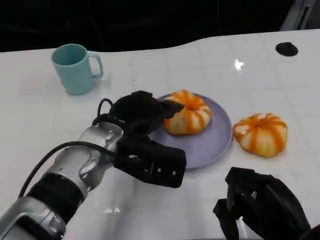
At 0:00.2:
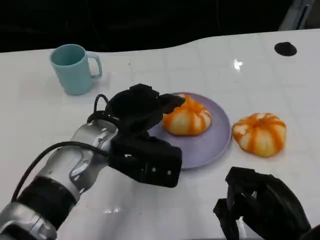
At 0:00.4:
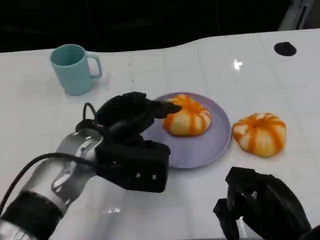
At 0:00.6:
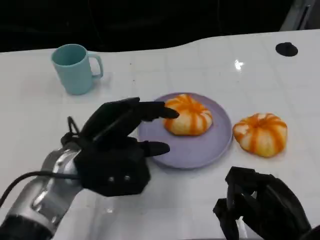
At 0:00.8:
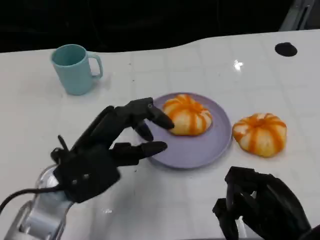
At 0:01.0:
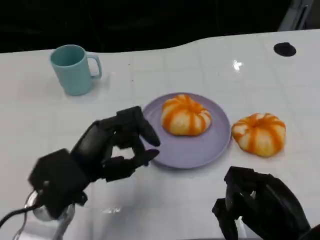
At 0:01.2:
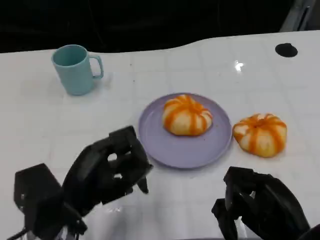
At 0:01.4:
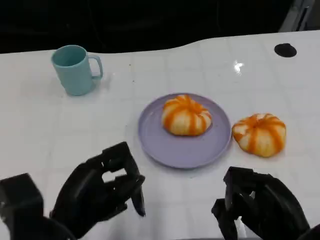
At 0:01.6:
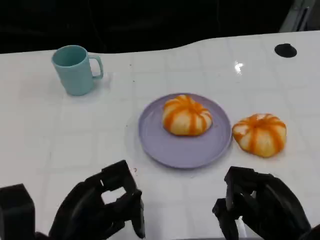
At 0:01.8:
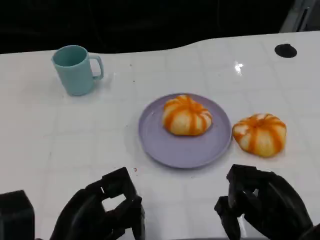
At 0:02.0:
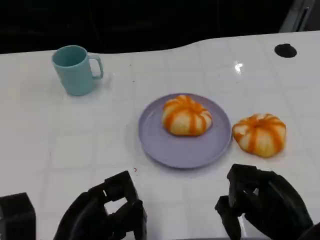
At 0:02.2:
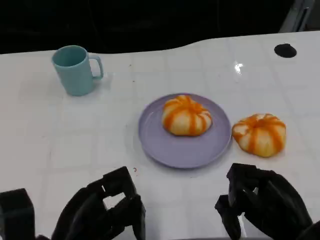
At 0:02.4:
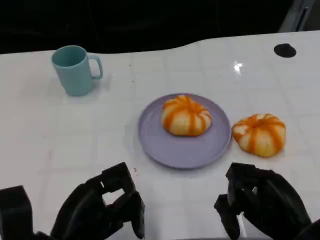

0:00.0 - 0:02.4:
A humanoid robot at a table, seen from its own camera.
Task of the whole recording: Grasp the bread from the table and place it into the plate.
0:00.0 - 0:01.2: The left hand is displaced backward and to the left by some 15 cm.

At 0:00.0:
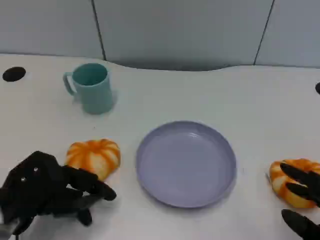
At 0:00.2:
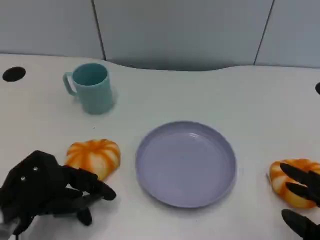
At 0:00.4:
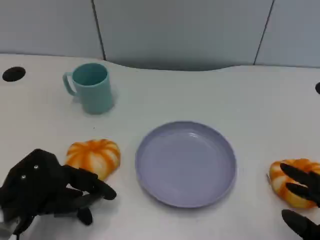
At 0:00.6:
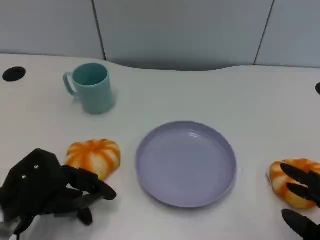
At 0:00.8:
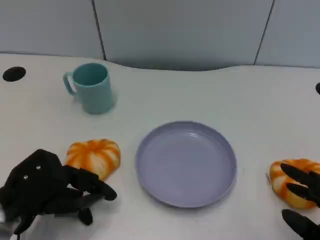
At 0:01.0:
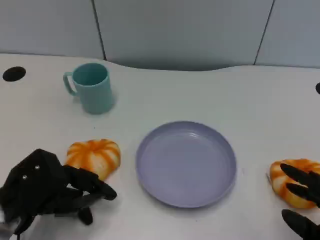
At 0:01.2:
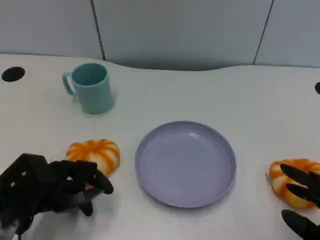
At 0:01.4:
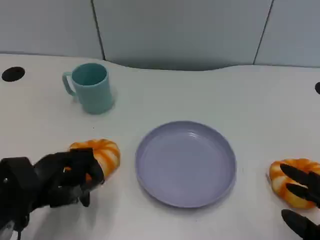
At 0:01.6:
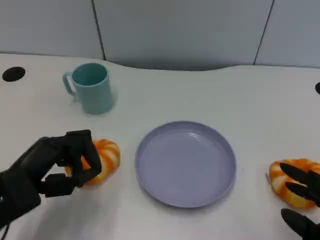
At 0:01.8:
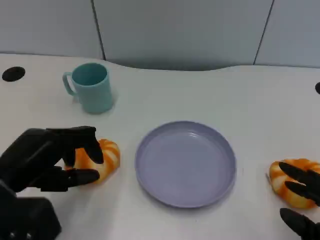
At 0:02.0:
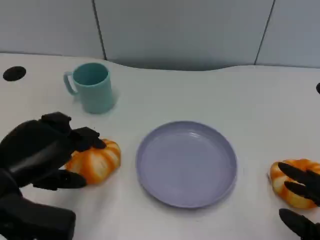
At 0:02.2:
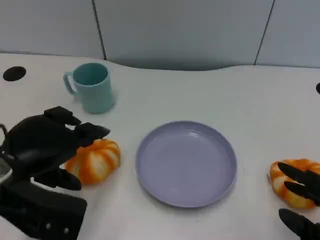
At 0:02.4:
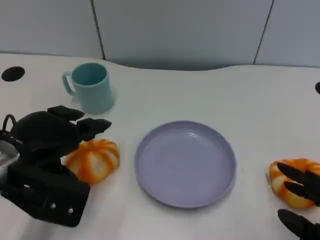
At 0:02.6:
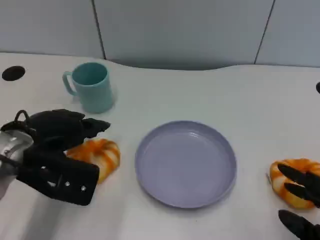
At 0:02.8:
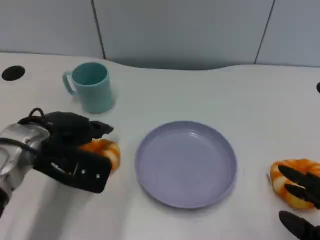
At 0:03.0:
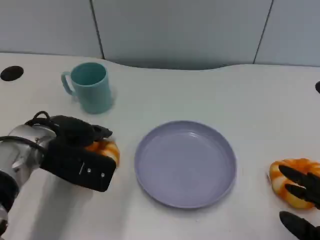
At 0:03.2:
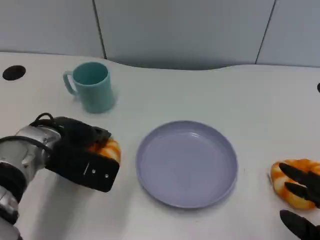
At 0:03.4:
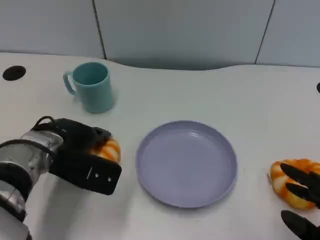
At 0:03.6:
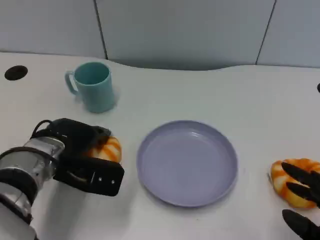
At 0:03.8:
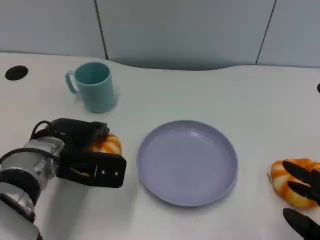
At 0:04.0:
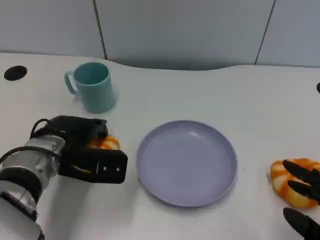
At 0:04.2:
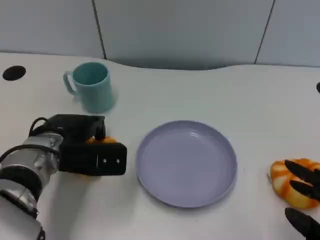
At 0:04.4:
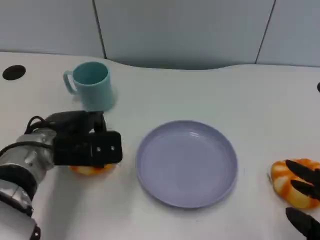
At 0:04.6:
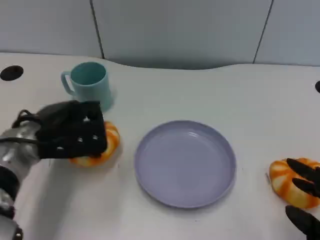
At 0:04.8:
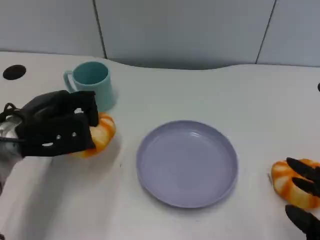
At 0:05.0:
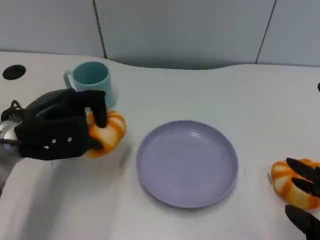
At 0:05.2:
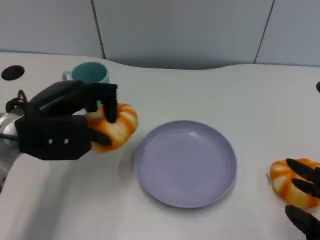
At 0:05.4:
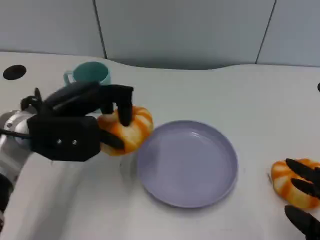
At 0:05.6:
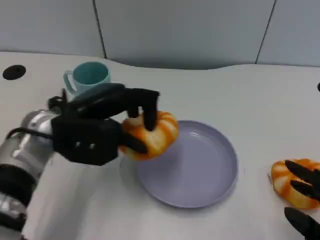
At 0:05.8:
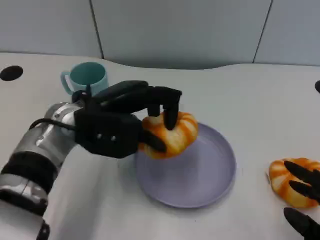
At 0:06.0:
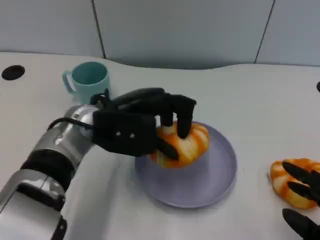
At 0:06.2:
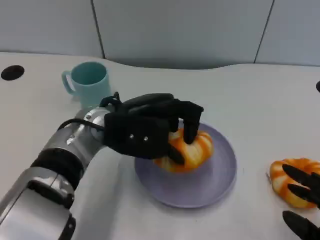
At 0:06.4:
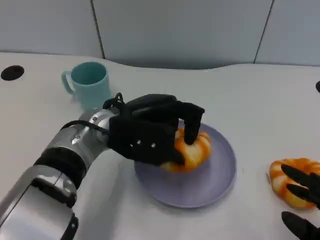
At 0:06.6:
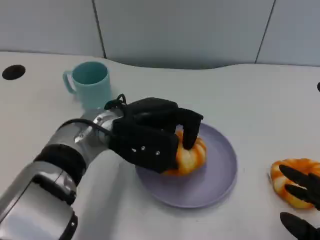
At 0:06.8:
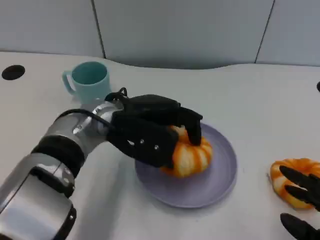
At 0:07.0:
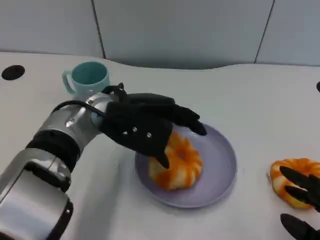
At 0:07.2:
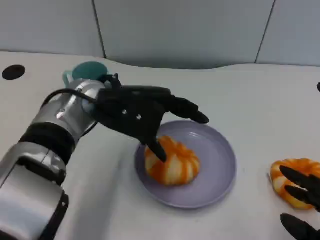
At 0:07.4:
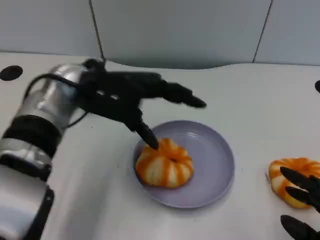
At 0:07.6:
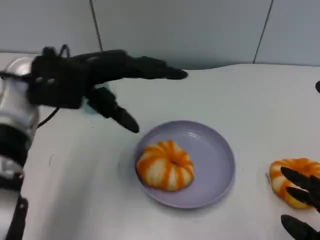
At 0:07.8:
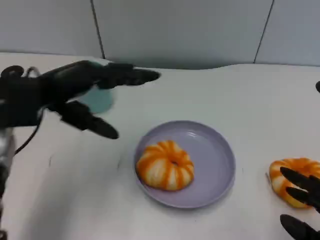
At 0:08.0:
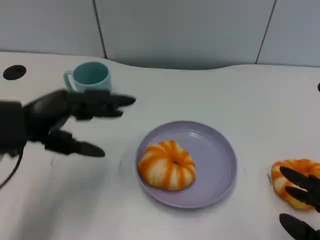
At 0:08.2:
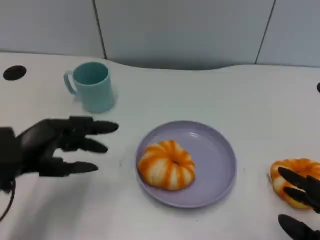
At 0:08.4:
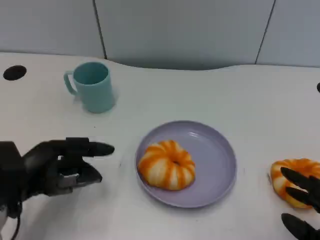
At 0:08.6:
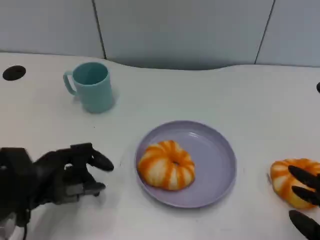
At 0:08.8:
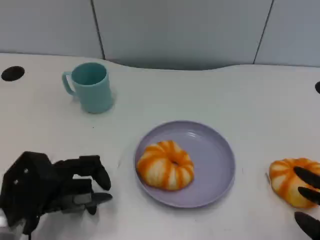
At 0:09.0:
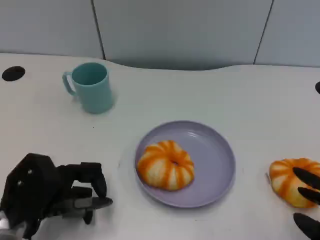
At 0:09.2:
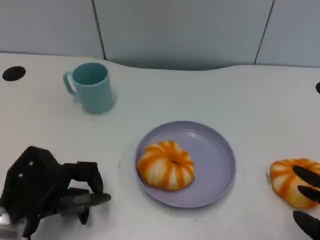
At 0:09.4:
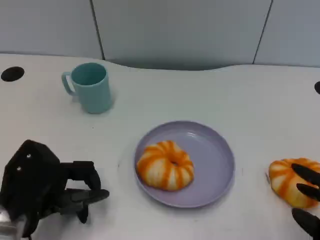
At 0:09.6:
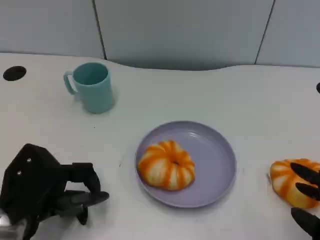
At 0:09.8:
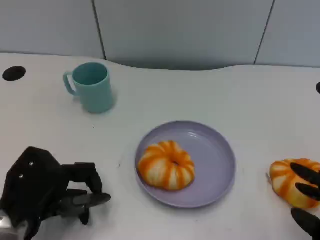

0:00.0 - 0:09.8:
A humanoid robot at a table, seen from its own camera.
Task of the whole recording: Grasp the bread from the table and place it into the plate.
0:01.4 - 0:02.8: The left hand goes about 10 cm forward.
0:02.8 - 0:04.2: The hands make only small movements.
0:04.2 - 0:05.6: The left hand shifts roughly 5 cm upward.
0:05.6 - 0:07.0: The left hand travels to the right by some 5 cm.
0:07.0 - 0:08.4: The left hand goes roughly 20 cm to the left, backward and downward.

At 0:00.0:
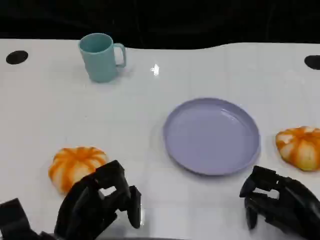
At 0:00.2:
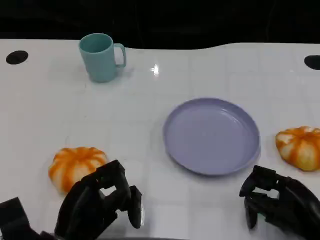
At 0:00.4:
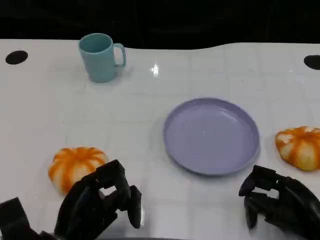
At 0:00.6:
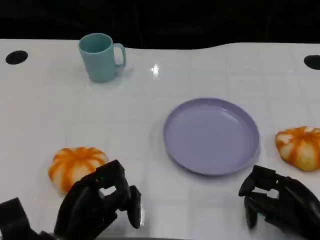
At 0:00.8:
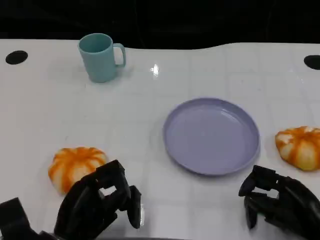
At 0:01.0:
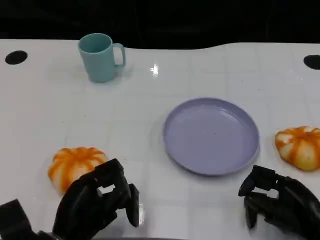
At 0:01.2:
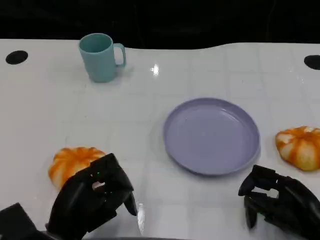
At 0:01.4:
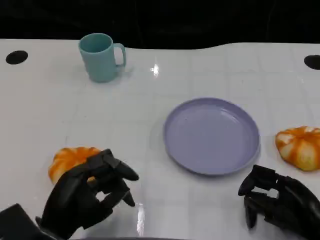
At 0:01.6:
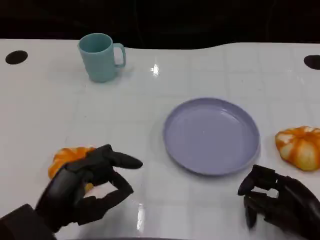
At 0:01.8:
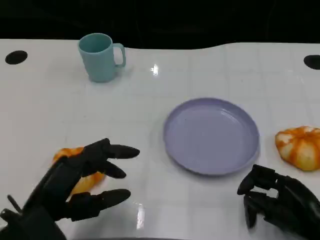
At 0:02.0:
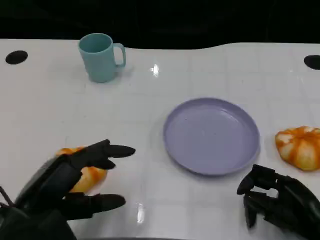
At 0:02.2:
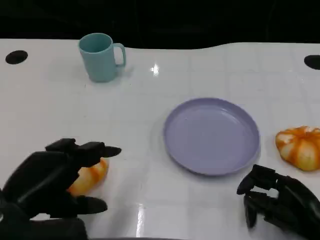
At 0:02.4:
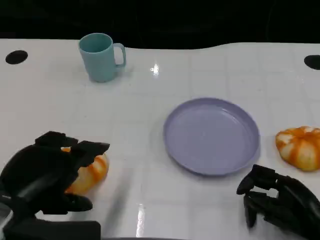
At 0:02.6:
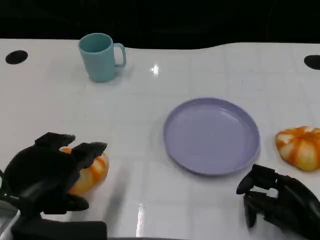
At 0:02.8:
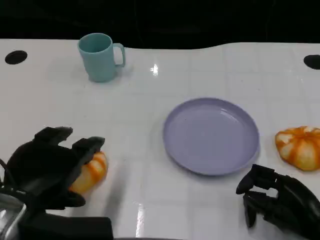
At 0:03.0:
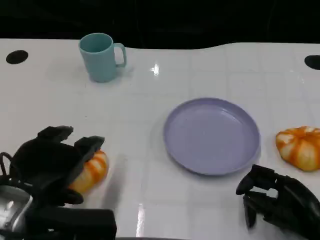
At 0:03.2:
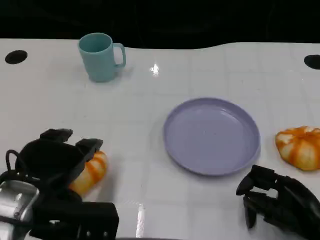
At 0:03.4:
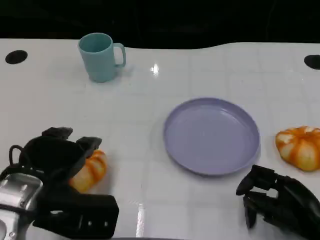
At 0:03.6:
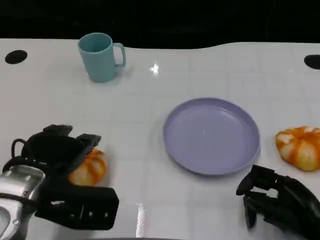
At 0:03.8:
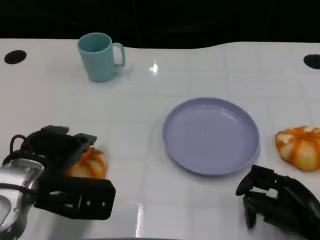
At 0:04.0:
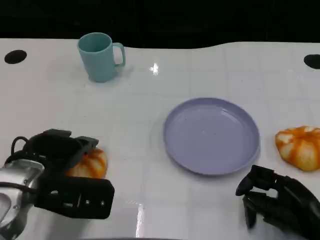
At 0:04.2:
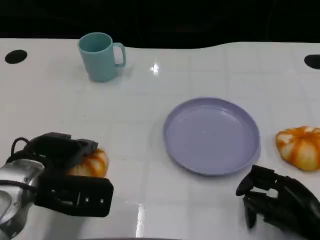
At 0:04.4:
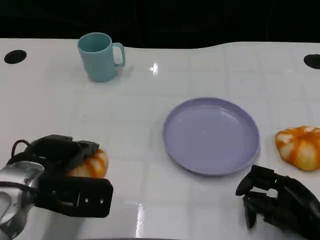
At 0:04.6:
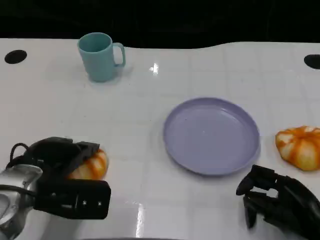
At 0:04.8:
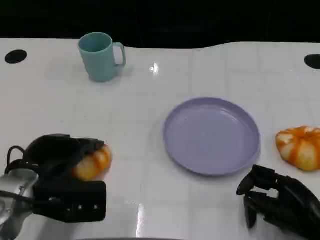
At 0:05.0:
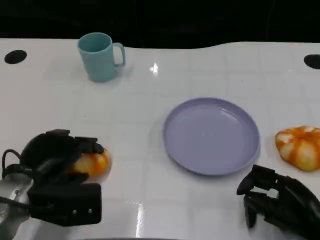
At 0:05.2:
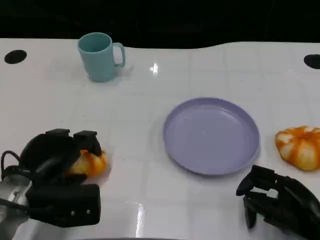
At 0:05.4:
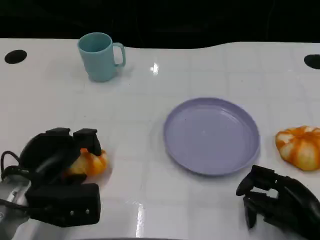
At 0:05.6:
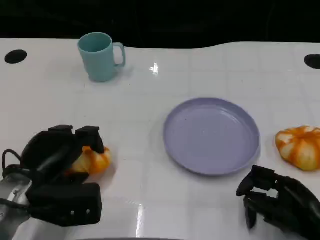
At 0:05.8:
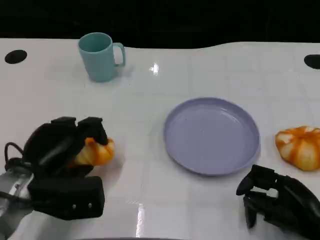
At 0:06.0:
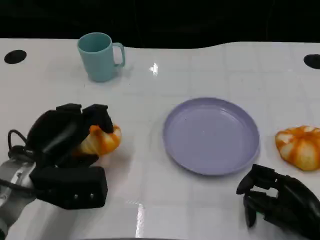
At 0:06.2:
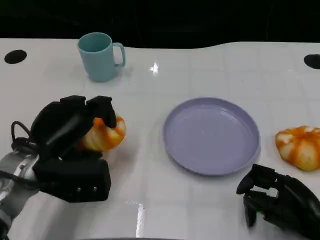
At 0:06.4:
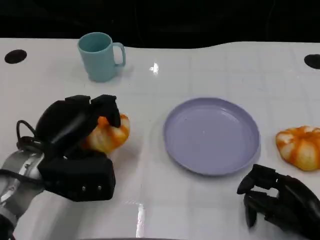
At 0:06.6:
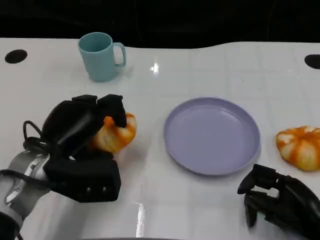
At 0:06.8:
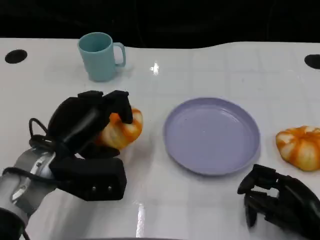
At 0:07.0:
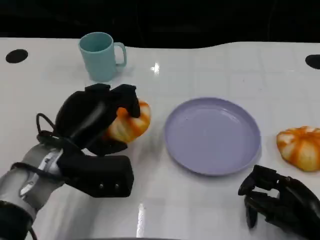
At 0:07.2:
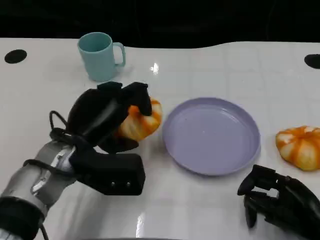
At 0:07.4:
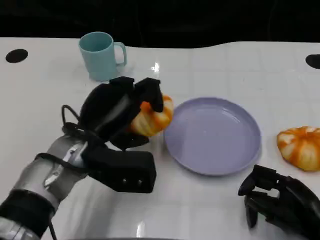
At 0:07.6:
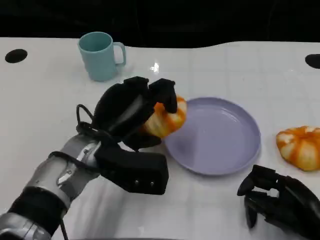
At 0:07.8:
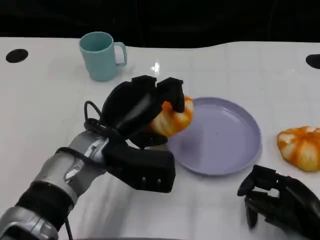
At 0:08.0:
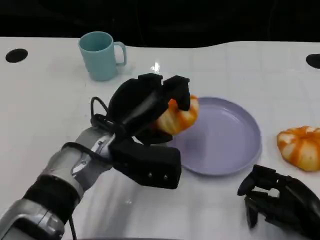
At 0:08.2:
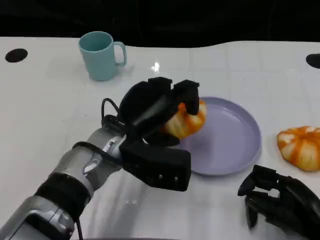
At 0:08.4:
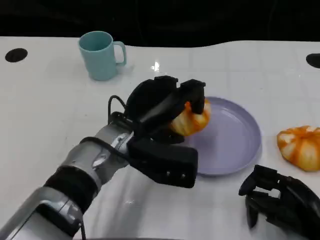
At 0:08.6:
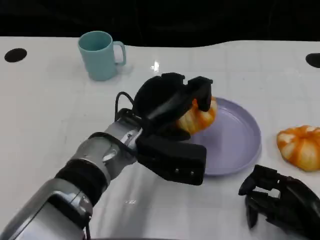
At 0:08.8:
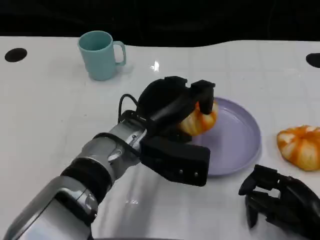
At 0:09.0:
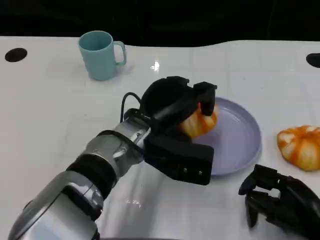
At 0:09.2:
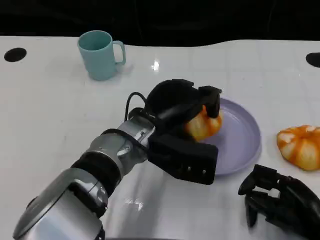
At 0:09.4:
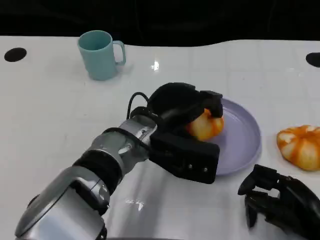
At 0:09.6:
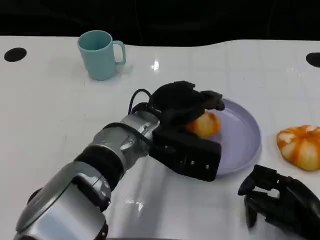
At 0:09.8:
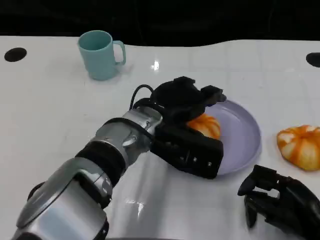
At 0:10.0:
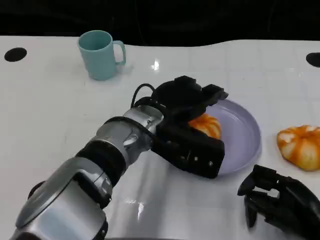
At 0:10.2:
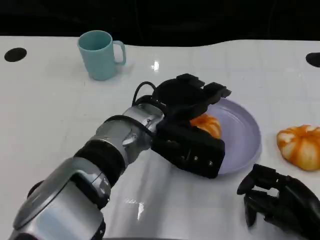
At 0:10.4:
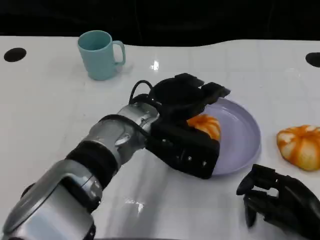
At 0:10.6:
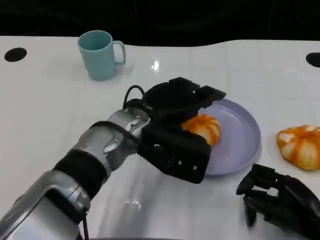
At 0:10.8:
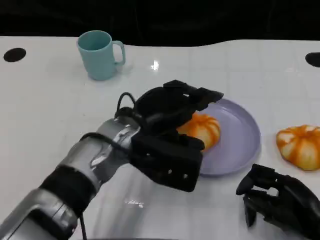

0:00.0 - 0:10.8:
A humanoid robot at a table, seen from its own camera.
Task of the whole recording: Grasp the bread from the table and place it into the plate.
0:00.0 - 0:01.6: The left hand shifts by some 5 cm.
0:01.6 - 0:03.0: The left hand goes about 5 cm upward.
0:03.0 - 0:04.6: The left hand shifts roughly 10 cm forward and downward.
0:06.2 - 0:07.8: The left hand shifts about 10 cm to the right.
0:07.8 - 0:09.2: The left hand moves to the right, roughly 5 cm.
0:09.2 - 0:10.8: The hands stay close to where they were, moving slightly.
